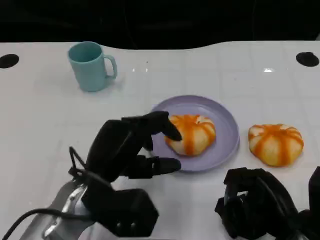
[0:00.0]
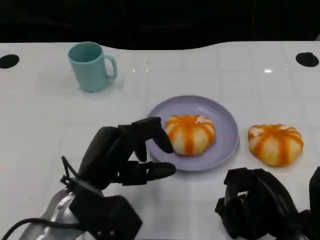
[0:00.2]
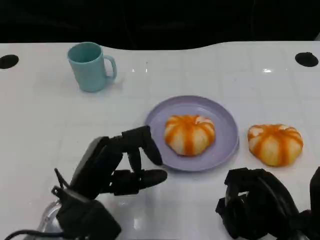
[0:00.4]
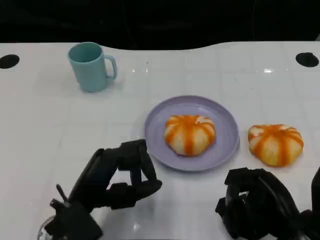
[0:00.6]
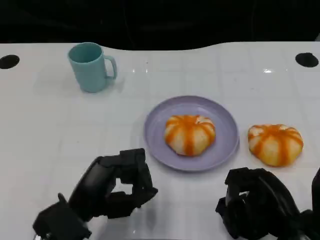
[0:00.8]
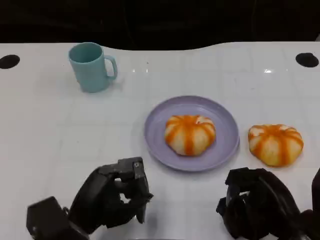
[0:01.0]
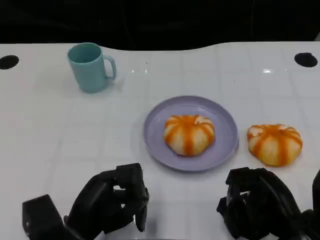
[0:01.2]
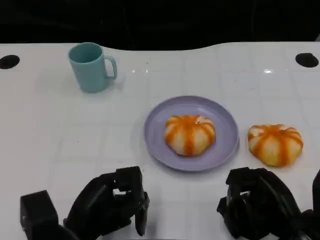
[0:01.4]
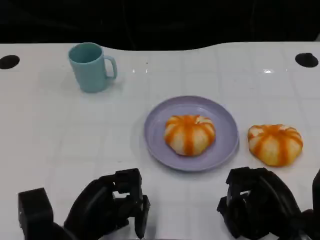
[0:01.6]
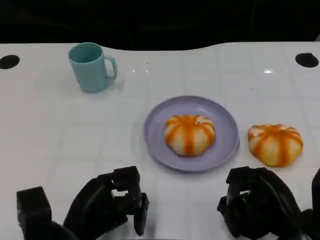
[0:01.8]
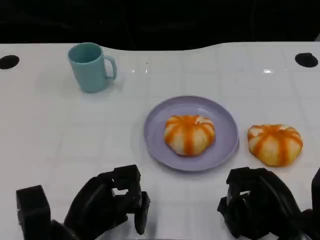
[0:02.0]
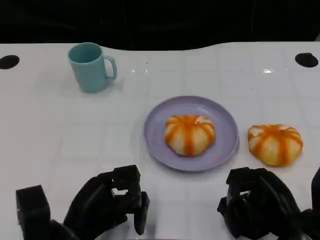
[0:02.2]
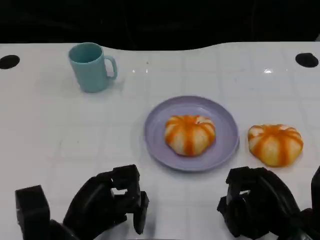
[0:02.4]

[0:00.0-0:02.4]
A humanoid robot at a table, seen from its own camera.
Task of the whole recording: Grasp the bread from the table and place it into the plate.
0:00.0 to 0:01.2: The left hand changes place by approximately 10 cm.
0:01.2 to 0:02.4: There are only small adjustments of the hands.

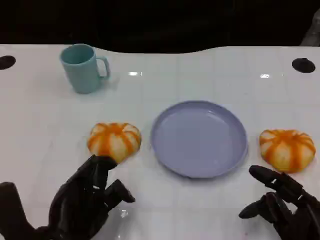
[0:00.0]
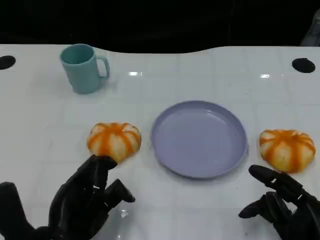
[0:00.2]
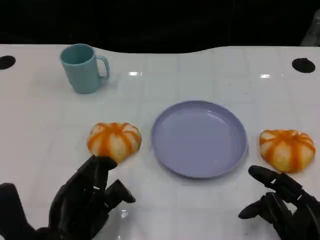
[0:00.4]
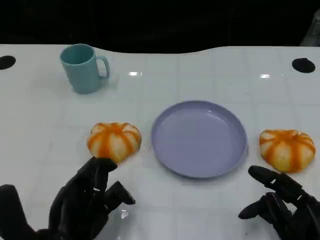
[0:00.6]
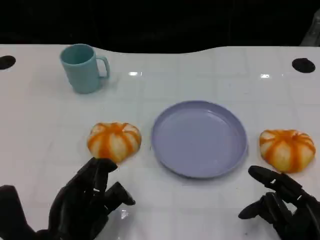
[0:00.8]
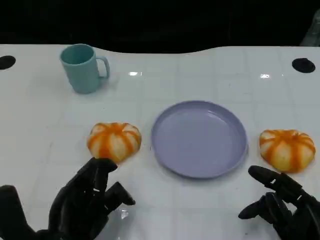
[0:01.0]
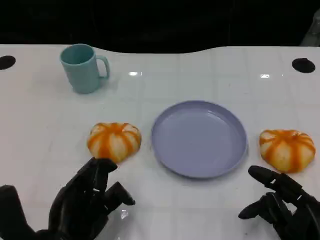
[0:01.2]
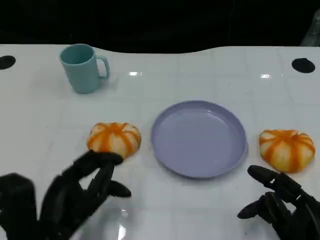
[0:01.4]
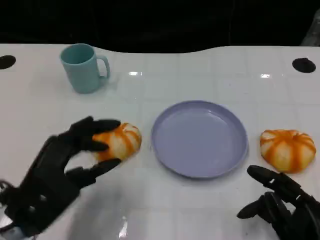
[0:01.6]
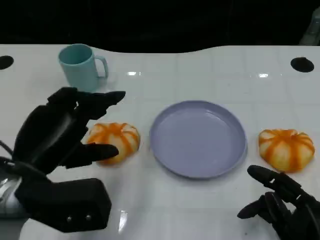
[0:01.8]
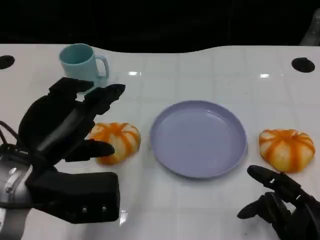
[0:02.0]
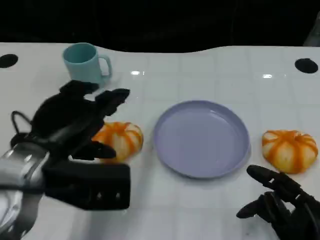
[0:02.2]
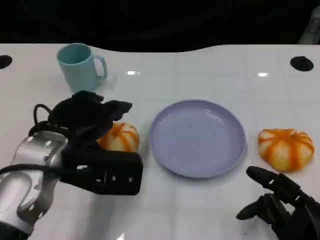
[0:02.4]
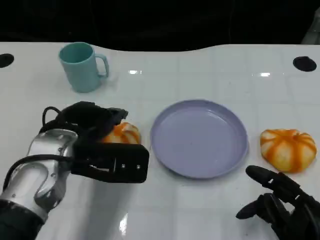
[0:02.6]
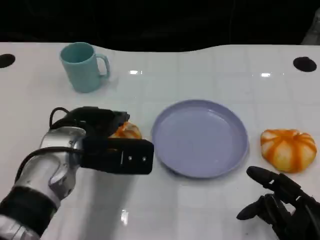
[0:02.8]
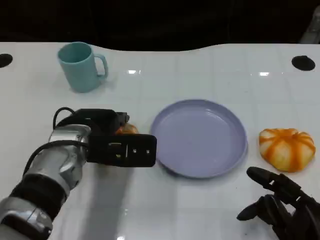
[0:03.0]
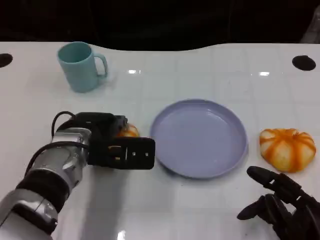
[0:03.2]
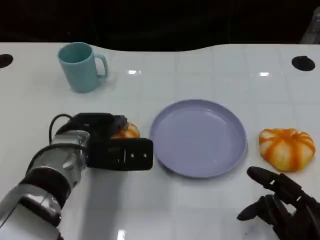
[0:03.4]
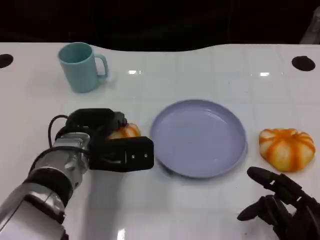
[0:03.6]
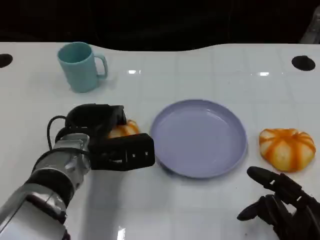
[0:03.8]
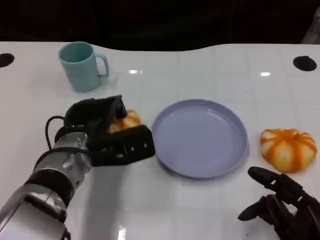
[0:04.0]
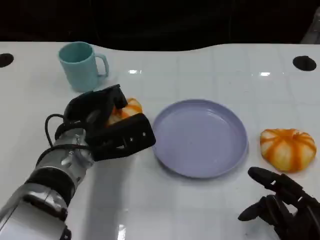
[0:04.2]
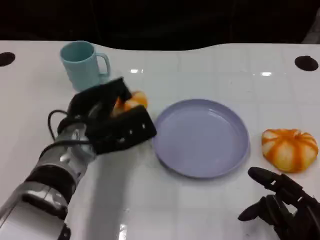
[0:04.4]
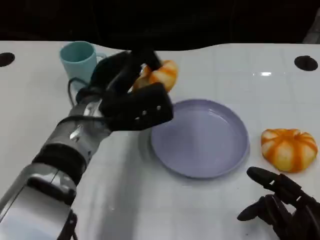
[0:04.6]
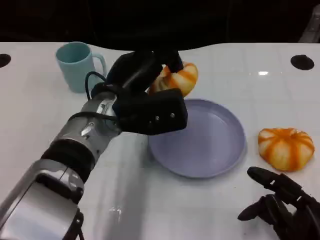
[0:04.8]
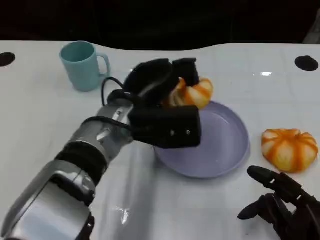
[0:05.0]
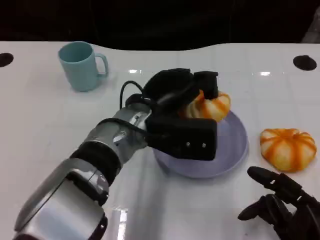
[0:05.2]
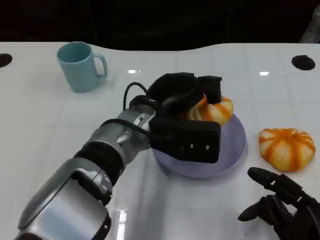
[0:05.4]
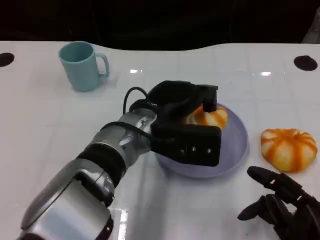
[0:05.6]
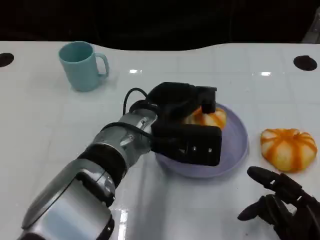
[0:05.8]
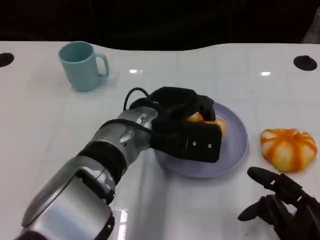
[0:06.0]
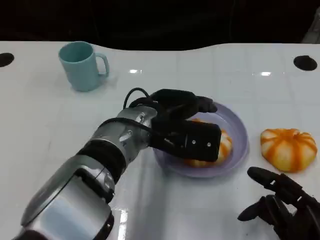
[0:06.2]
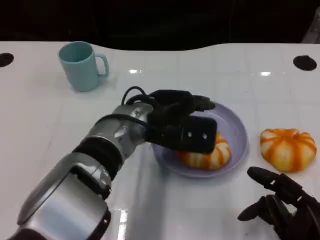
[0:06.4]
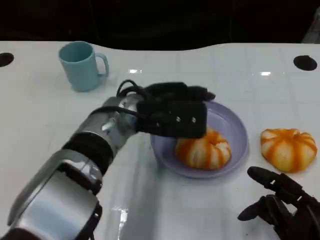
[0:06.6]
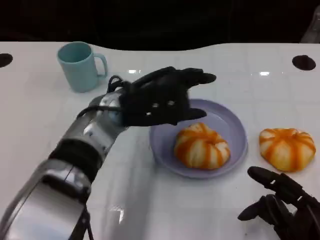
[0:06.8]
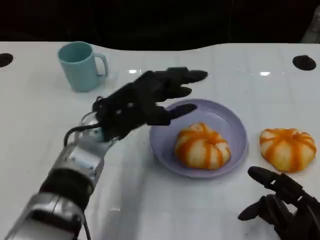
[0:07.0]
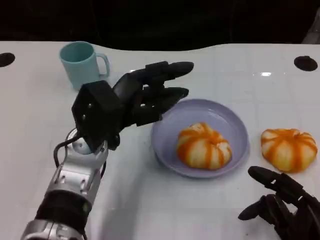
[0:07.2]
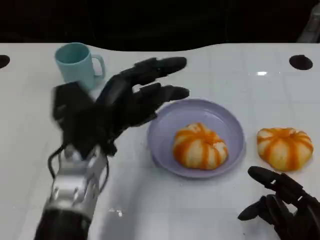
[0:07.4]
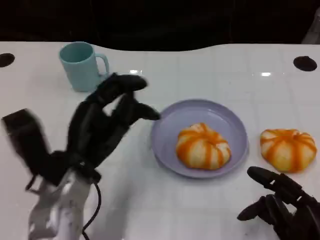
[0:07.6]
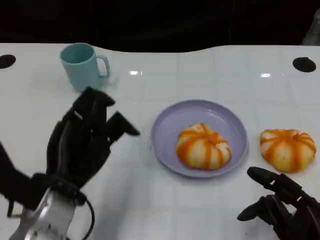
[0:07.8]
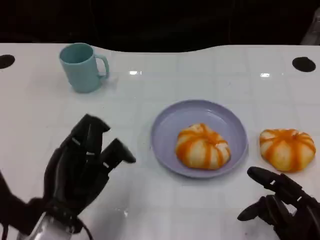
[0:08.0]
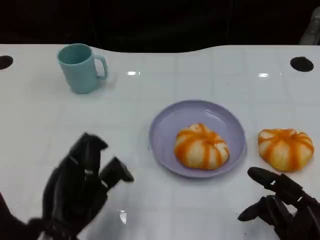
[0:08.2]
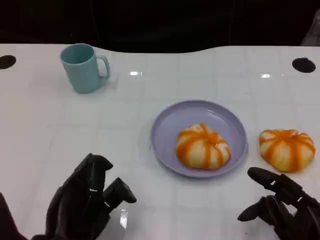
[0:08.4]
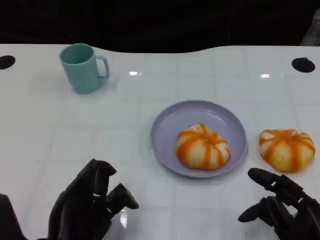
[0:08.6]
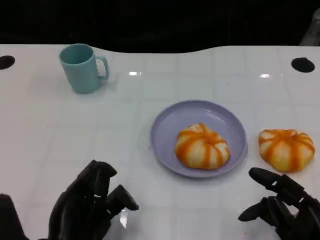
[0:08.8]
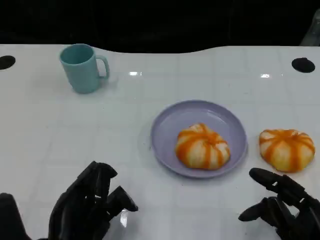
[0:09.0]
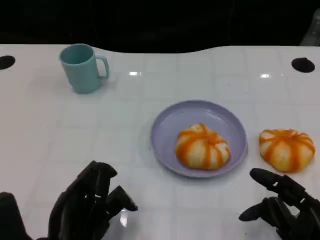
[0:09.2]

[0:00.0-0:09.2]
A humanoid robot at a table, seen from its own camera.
Task of the whole recording: Grasp the bread from the table and place it into the plate.
0:00.0 to 0:01.6: The left hand goes about 5 cm upward.
0:01.6 to 0:03.0: The left hand moves forward and to the right, roughly 15 cm.
0:03.0 to 0:04.6: The left hand shifts by about 5 cm.
0:04.6 to 0:06.2: The left hand travels to the right by some 5 cm.
0:06.2 to 0:07.6: The left hand shifts approximately 15 cm to the left and backward.
0:07.6 to 0:09.2: The left hand travels backward by some 10 cm.

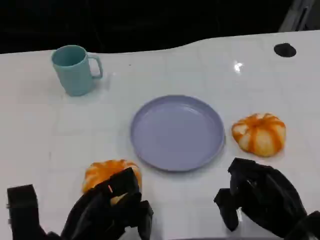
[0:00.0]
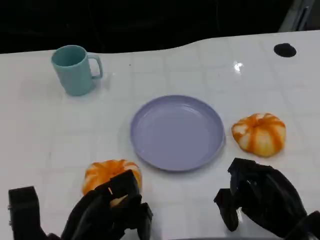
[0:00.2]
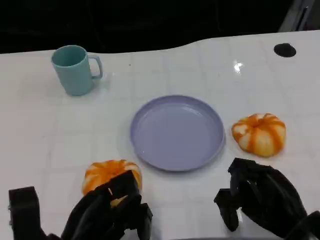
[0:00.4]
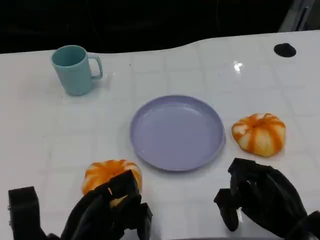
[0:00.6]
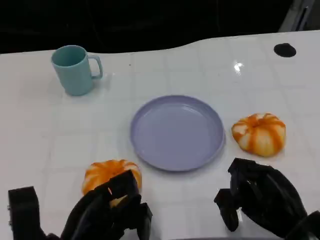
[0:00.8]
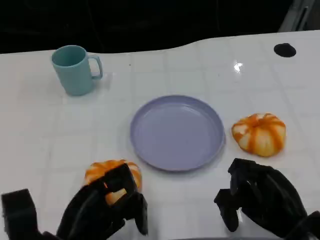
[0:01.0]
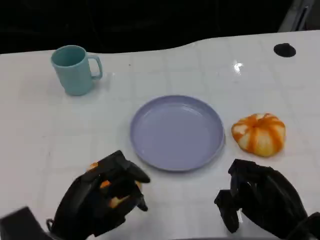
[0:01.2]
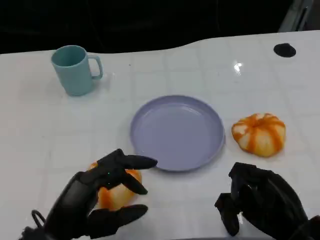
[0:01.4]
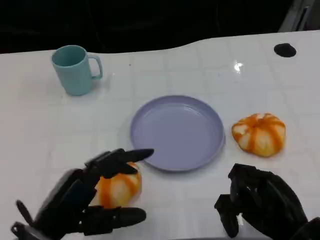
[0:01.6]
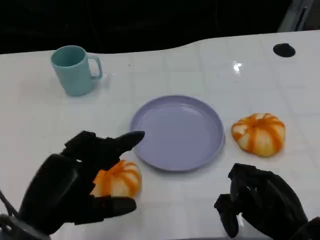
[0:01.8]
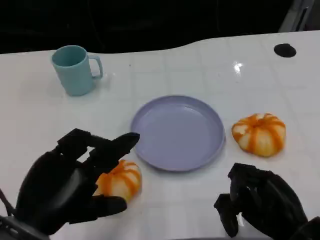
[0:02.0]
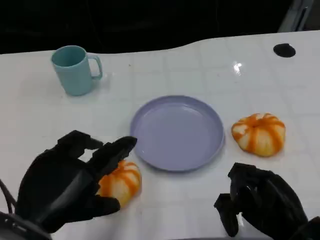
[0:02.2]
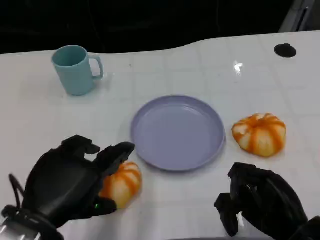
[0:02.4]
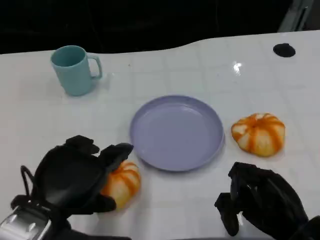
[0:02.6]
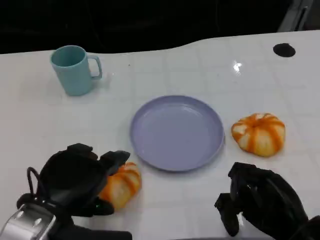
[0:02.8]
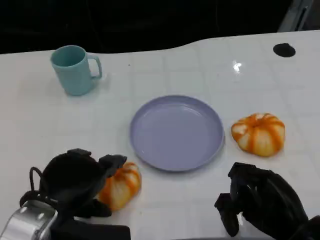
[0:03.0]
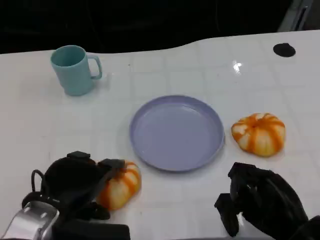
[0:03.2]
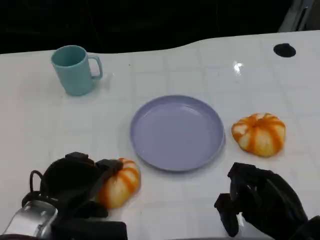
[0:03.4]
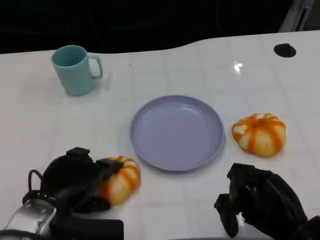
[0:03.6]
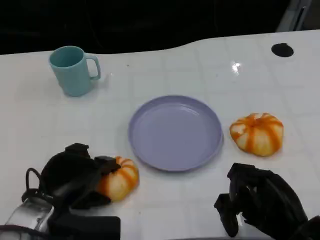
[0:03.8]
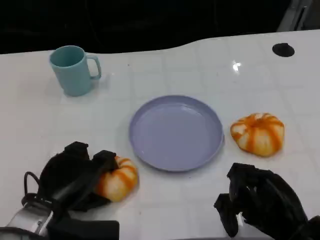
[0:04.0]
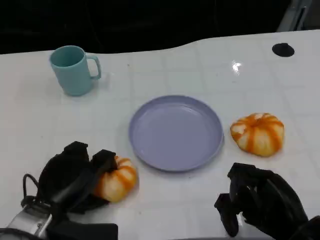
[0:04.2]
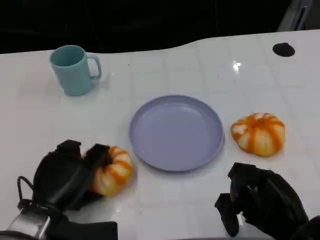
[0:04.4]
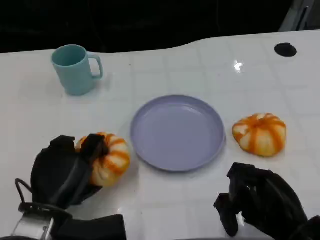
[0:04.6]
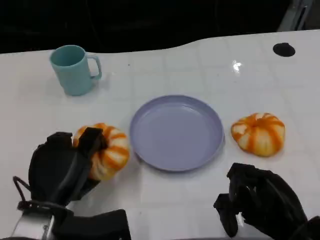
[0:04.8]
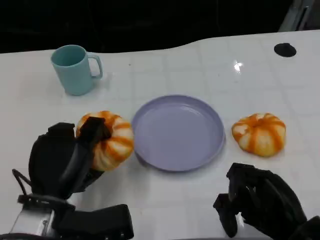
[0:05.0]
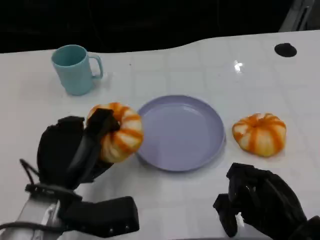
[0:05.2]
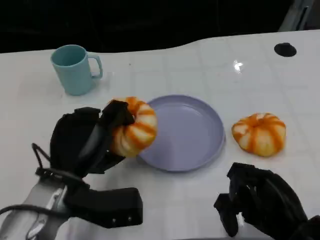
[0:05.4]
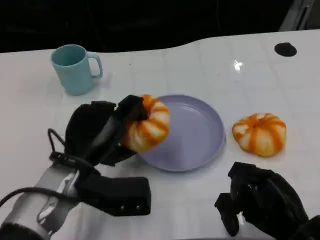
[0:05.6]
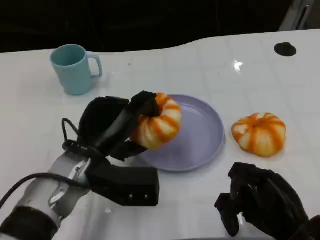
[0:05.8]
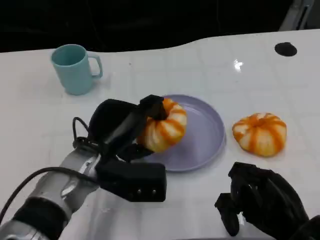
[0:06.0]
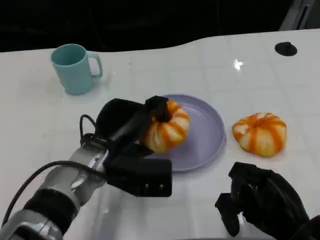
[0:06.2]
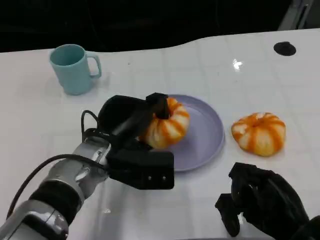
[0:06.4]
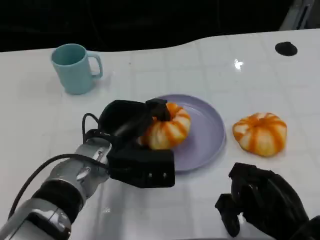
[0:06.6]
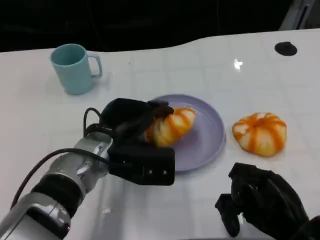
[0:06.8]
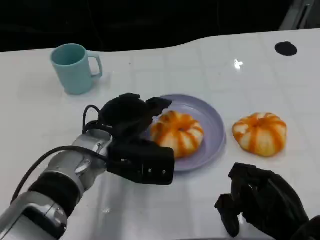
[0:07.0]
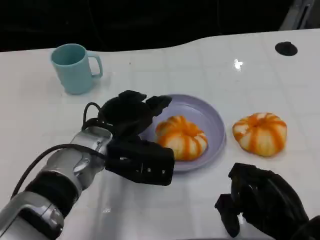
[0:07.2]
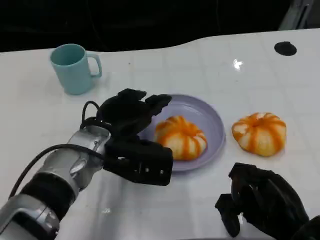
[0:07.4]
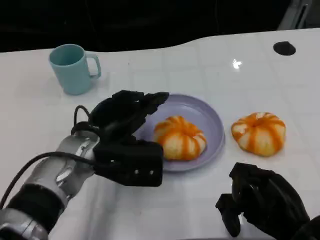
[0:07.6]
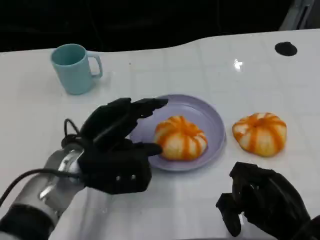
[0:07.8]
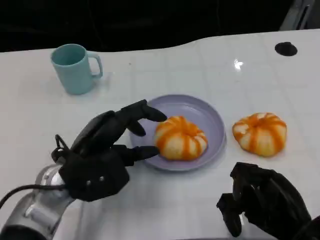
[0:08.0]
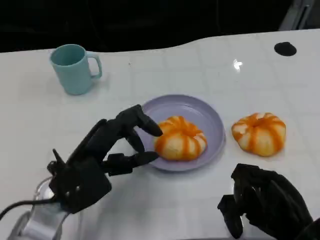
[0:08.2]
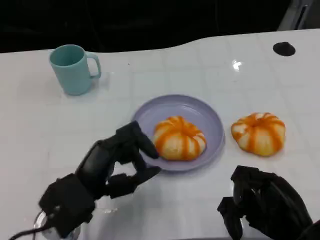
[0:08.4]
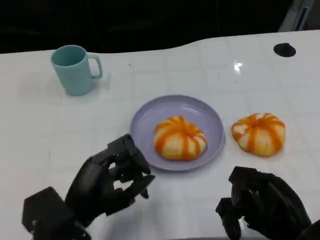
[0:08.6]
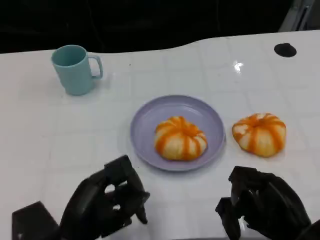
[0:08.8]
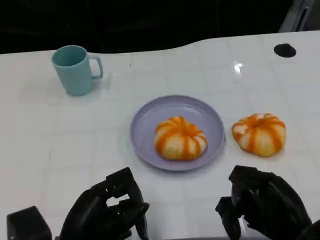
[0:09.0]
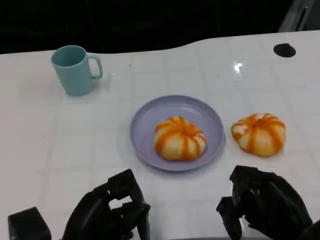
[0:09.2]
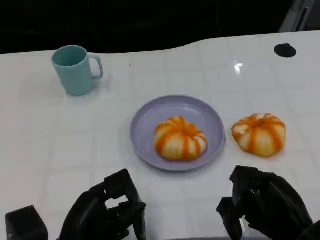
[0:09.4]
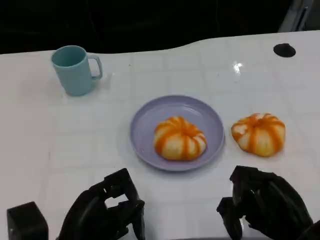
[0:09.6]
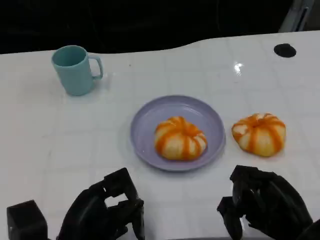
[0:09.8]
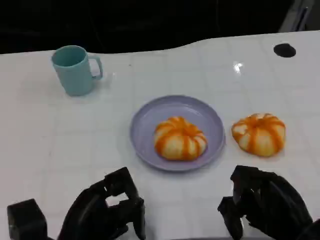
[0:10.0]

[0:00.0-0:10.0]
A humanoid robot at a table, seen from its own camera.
Task of the whole recording: Grasp the bread from the table and place it into the plate.
0:02.8 to 0:04.2: The left hand heads downward, covering roughly 5 cm.
0:04.2 to 0:05.8: The left hand goes about 10 cm to the right, upward and forward.
0:07.2 to 0:08.6: The left hand shifts approximately 15 cm backward and to the left.
